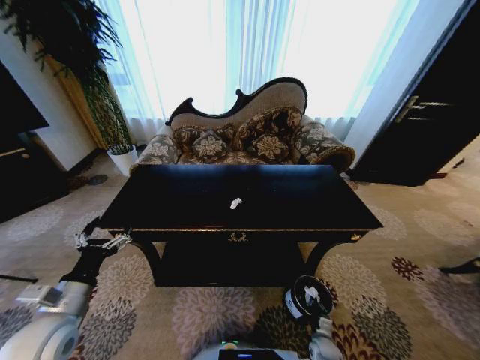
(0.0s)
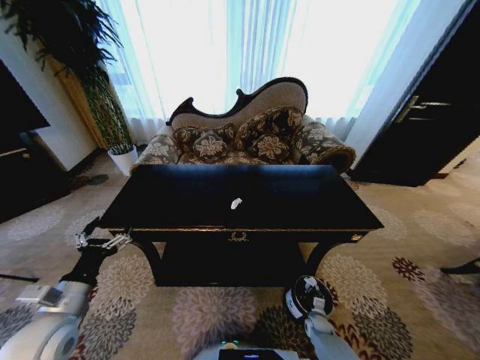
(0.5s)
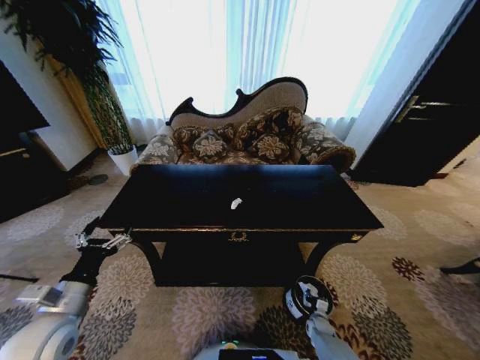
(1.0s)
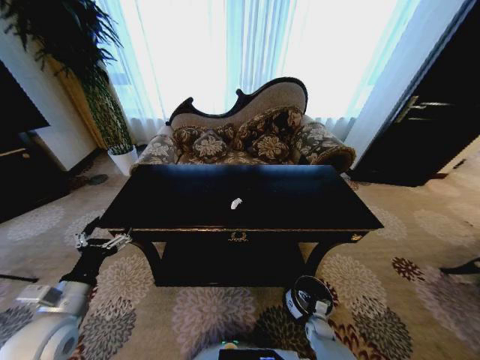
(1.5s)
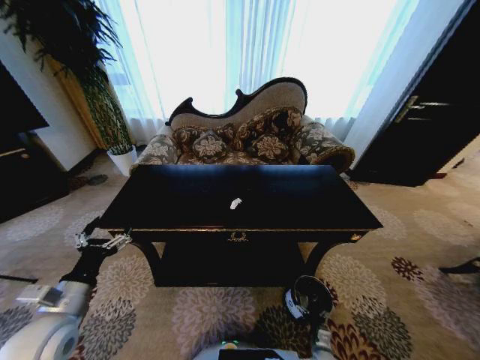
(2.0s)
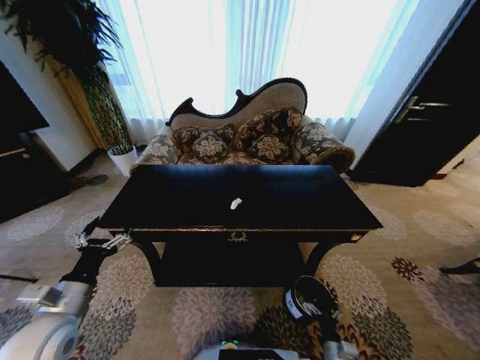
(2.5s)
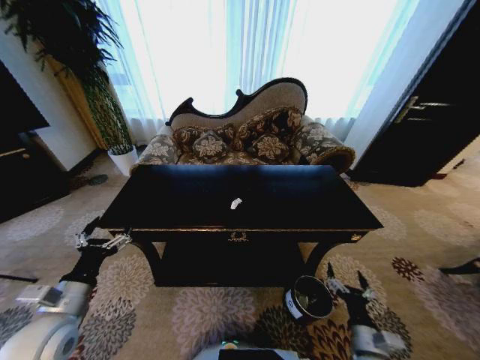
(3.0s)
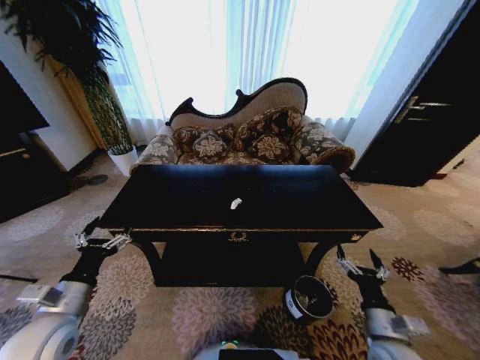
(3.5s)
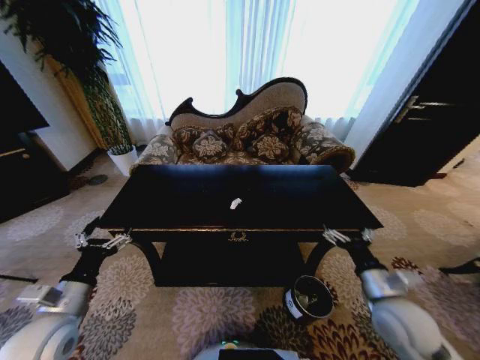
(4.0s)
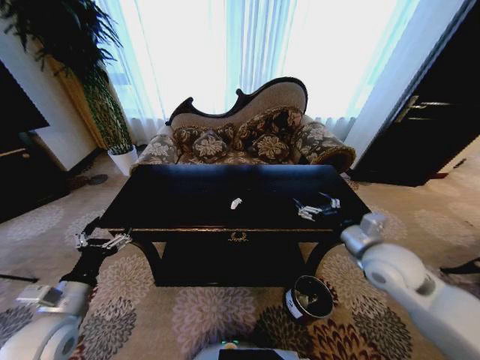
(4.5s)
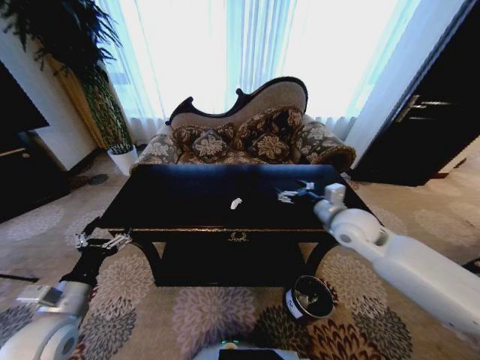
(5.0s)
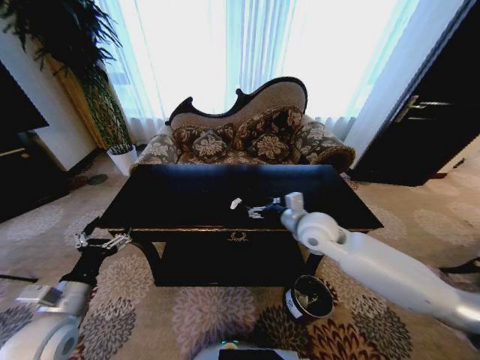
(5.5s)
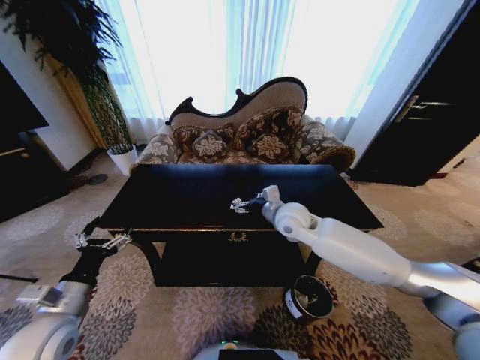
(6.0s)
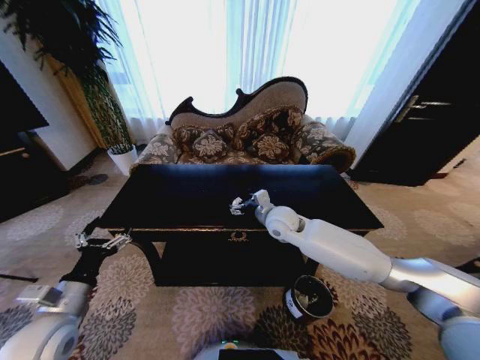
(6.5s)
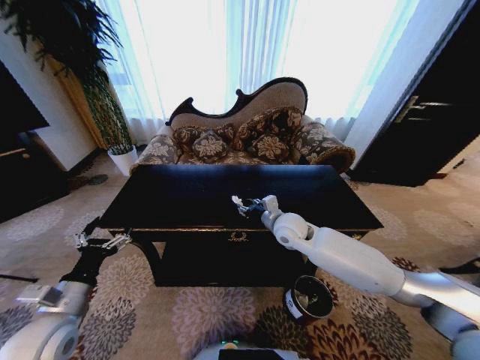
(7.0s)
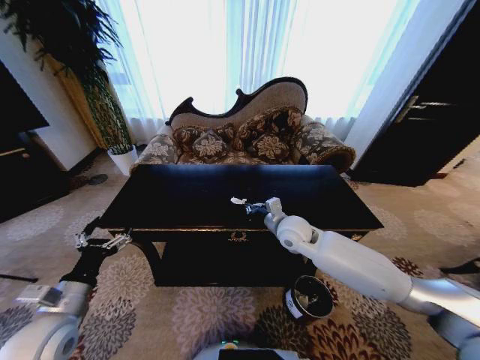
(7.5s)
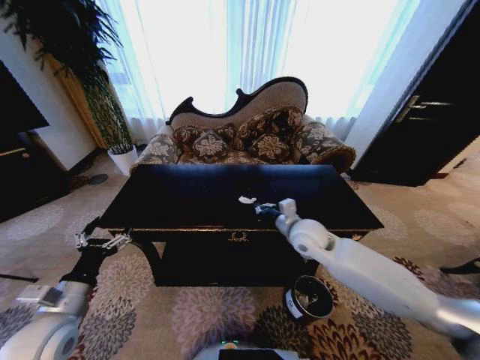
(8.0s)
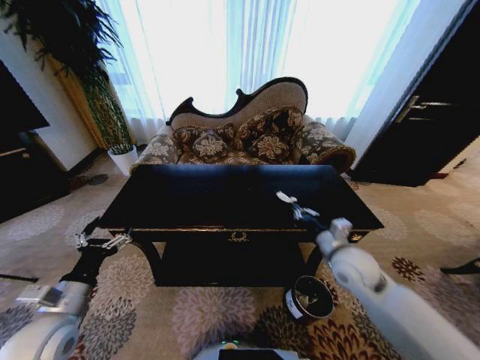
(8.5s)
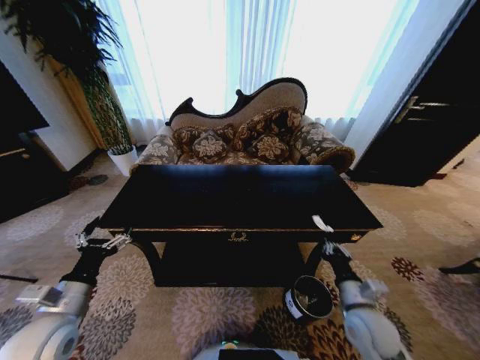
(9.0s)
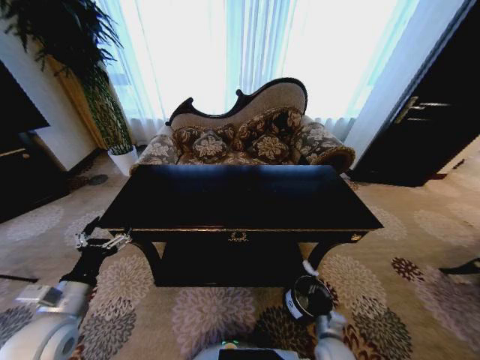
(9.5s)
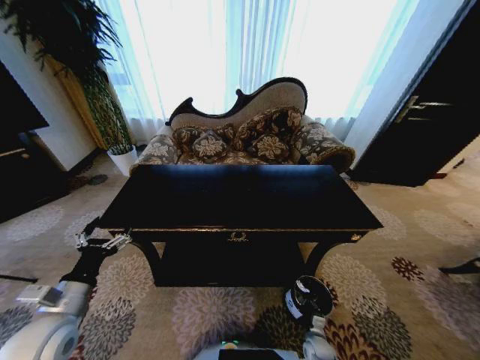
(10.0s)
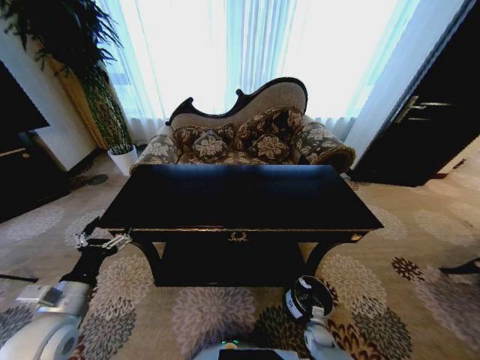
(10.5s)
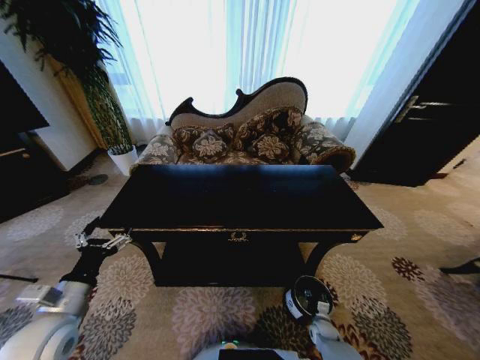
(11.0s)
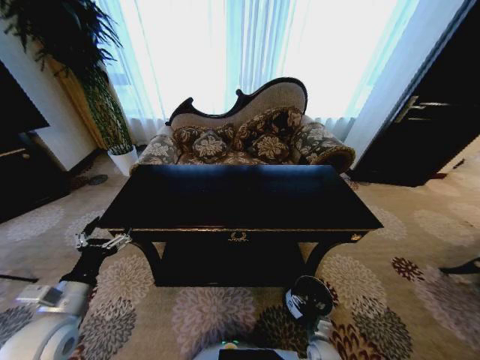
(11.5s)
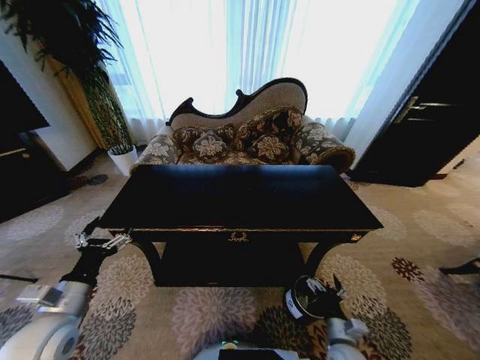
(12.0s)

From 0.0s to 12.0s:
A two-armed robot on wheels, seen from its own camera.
Task of the whole recording: Move to the front of the table and place the trash on the table into the trash bin.
From 0.0s to 2.0s: The right gripper goes forward and returns, about 5 cm each way, and opens its fingers.
From 2.0s to 4.0s: The right gripper moves upward, approximately 40 cm.
From 4.0s to 6.0s: The right gripper moves forward and to the left, about 30 cm.
From 6.0s to 8.0s: The right gripper changes place by some 5 cm, and closes its fingers.
From 8.0s to 10.0s: The right gripper travels downward and backward by some 50 cm.
From 10.0s to 12.0s: The right gripper moves upward, approximately 15 cm, and opens.

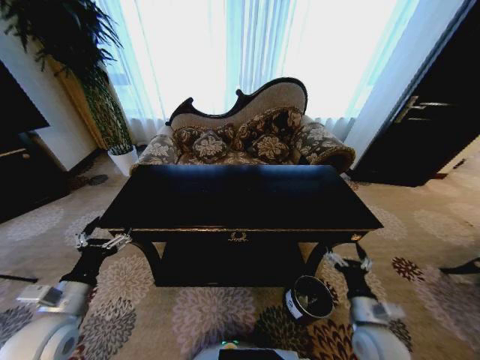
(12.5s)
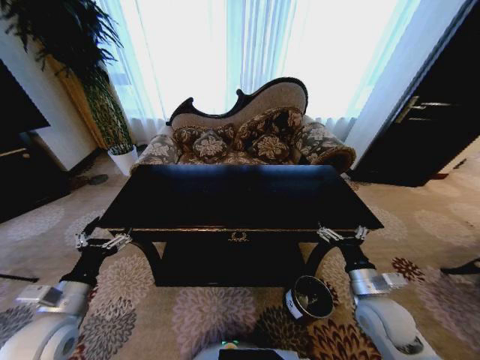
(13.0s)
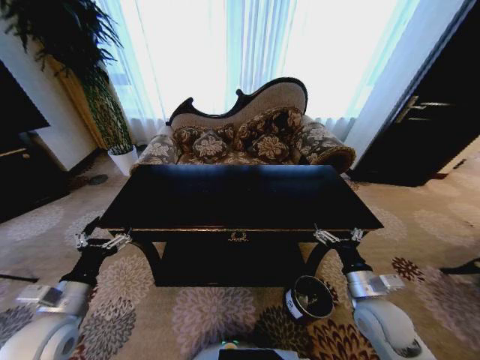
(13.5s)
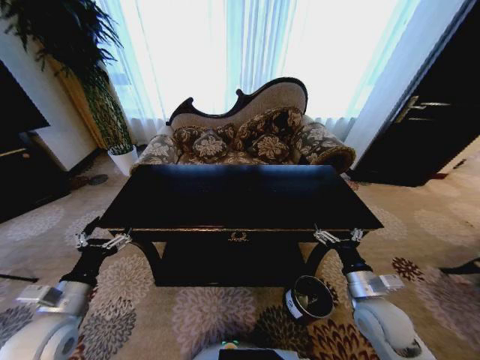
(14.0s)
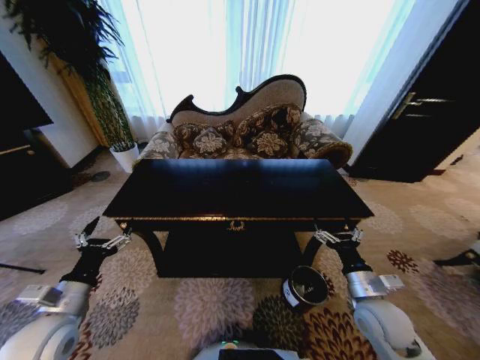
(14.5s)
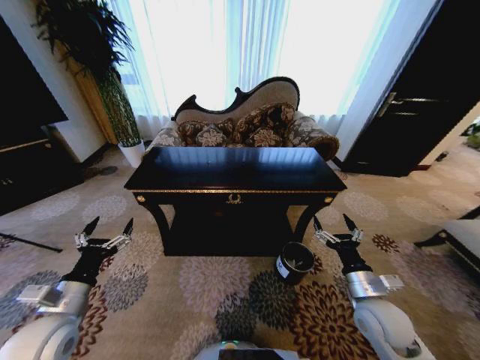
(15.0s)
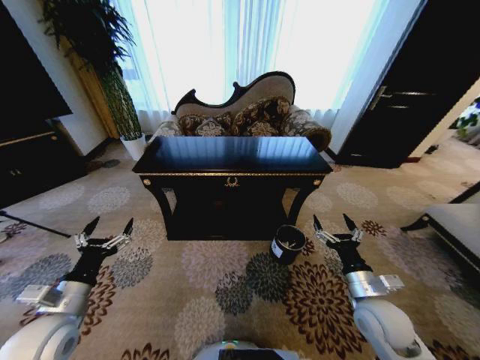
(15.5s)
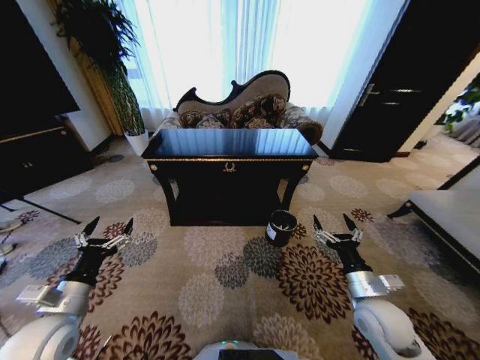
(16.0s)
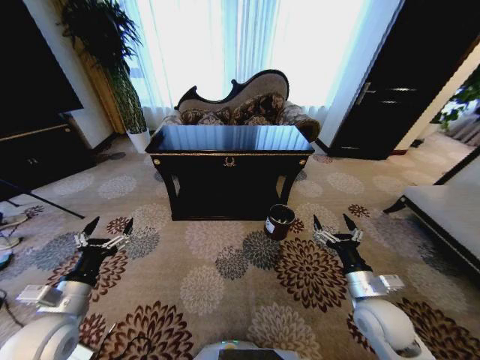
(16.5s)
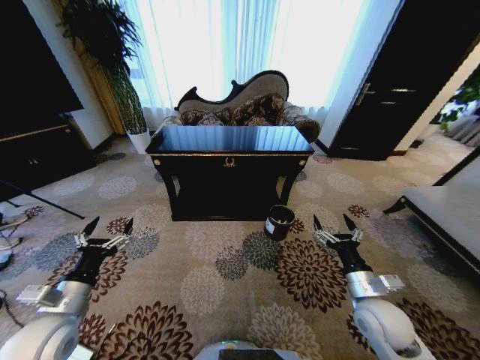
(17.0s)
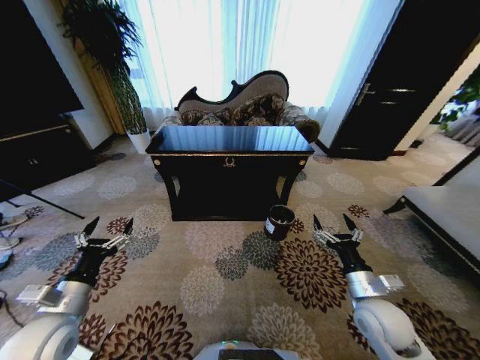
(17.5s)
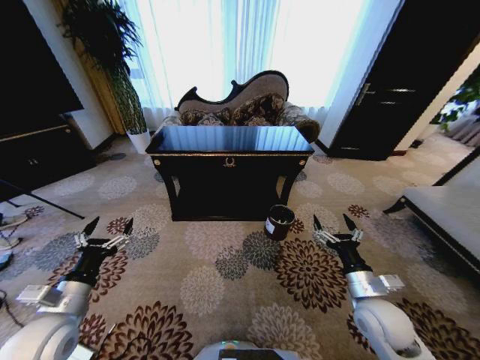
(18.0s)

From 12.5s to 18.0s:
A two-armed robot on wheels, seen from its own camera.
Task of the whole recording: Move to the front of the table and place the trash on the table into the trash bin.
From 12.5s to 14.5s: The right gripper is displaced upward by roughly 10 cm.
From 16.0s to 18.0s: The two grippers keep their place.

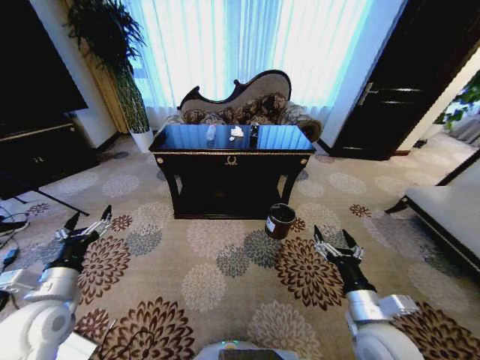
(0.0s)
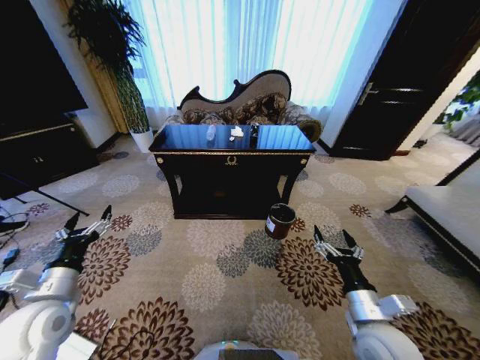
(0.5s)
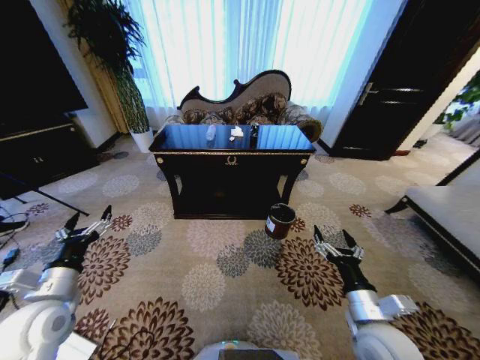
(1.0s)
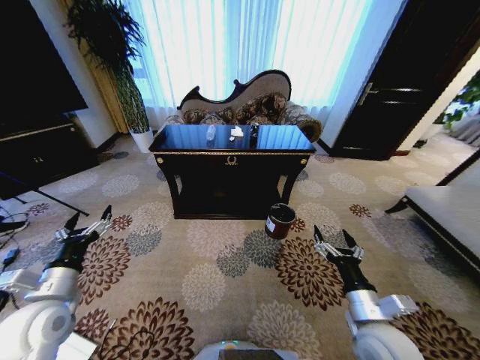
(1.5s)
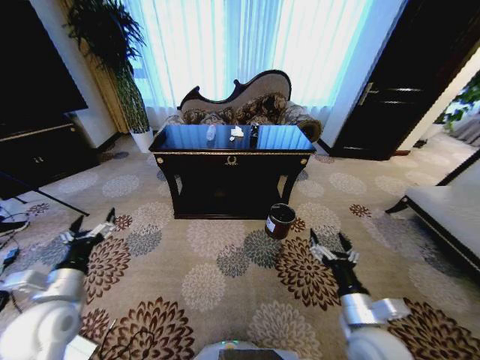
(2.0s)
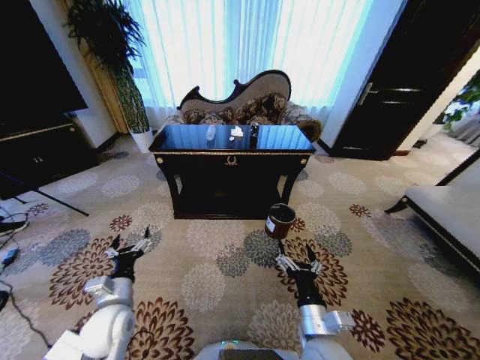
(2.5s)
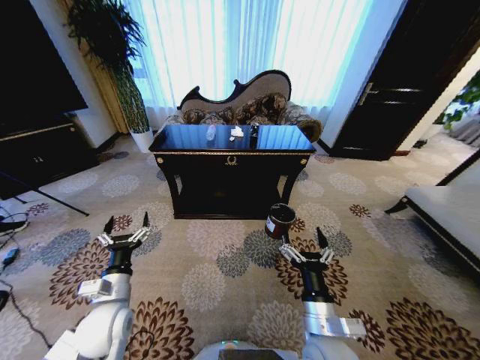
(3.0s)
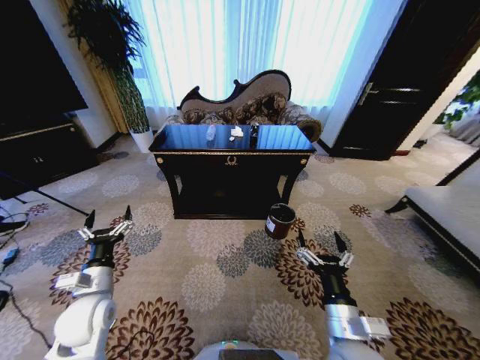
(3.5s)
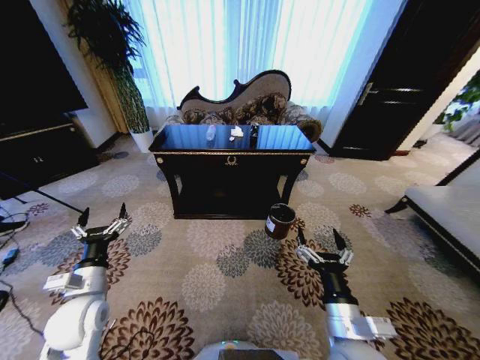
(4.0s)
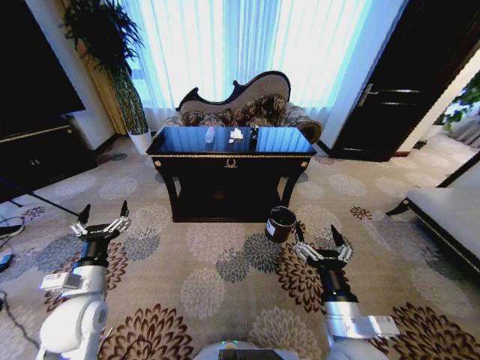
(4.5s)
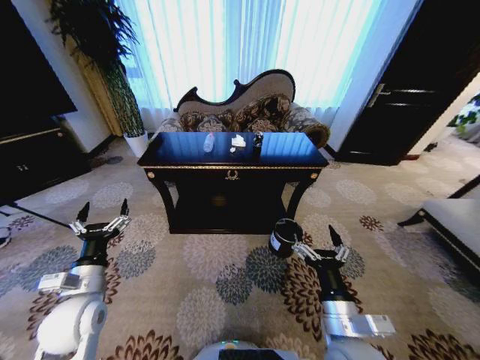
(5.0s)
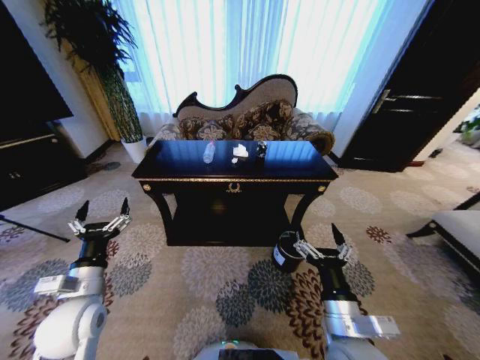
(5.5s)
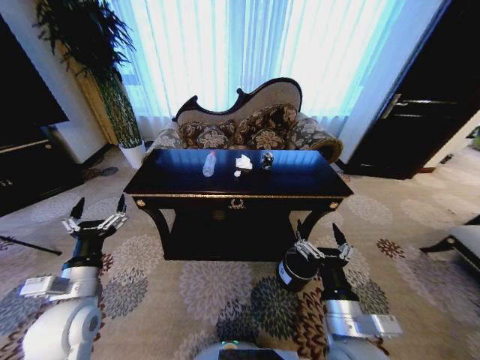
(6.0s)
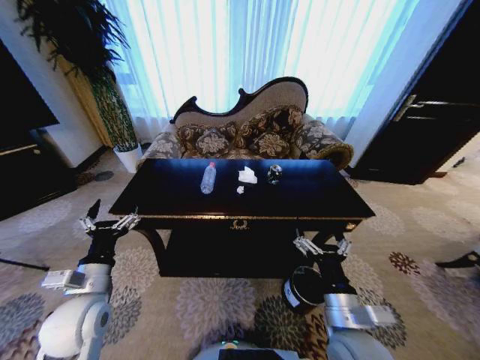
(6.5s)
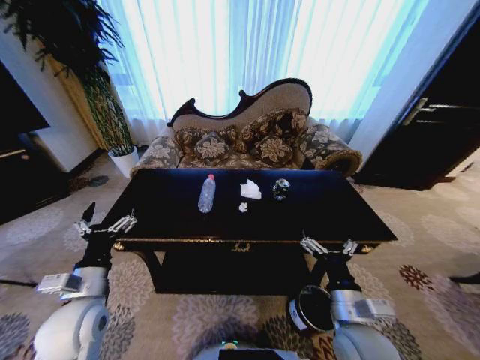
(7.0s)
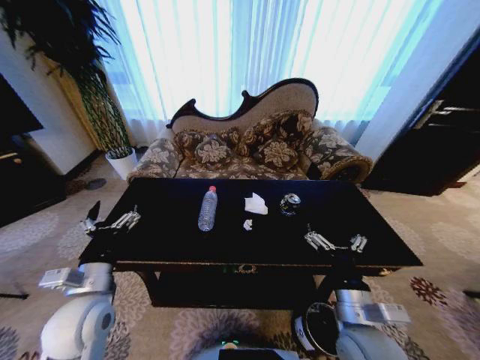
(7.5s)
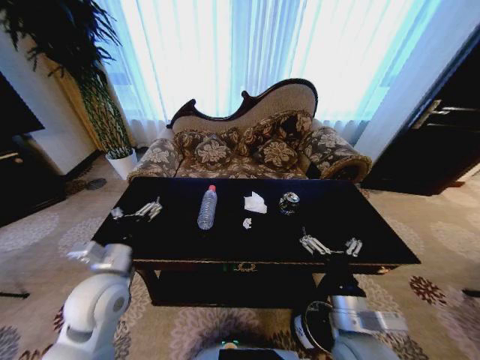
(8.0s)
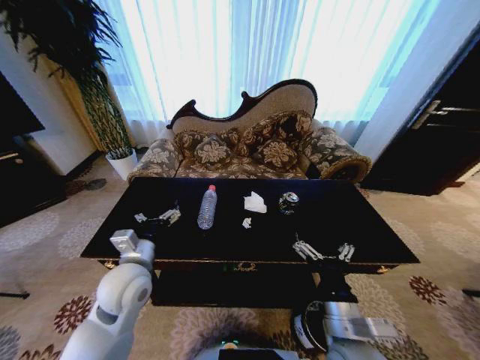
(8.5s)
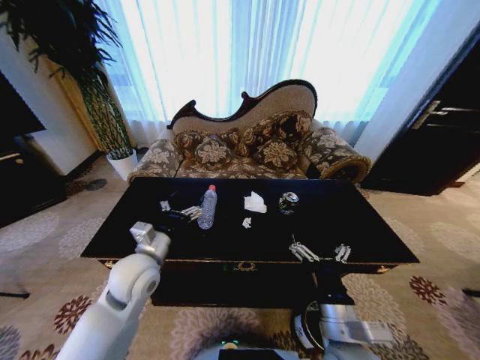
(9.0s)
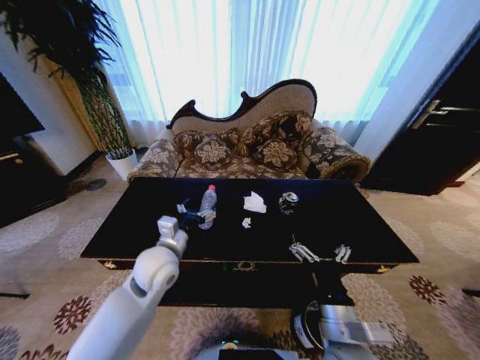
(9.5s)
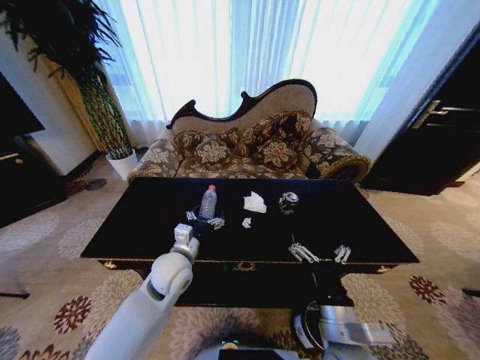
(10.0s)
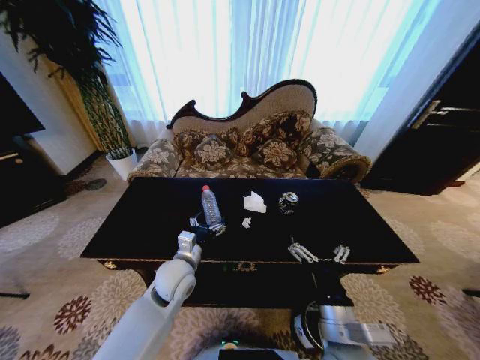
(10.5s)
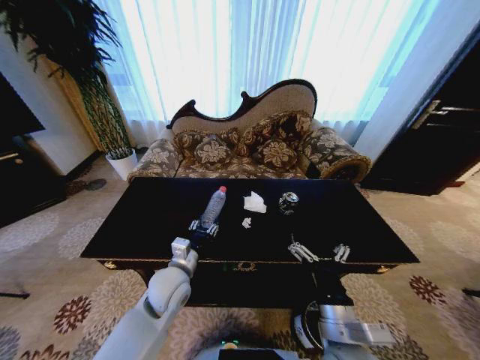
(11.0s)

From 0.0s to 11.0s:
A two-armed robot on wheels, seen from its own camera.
Task of the whole recording: Move to the front of the table and place the trash on the table into the trash bin.
From 2.0s to 3.5s: The right gripper goes about 5 cm to the left.
From 7.5s to 9.0s: The left gripper heads forward and to the right, covering about 10 cm.
From 9.0s to 11.0s: The left gripper travels downward and to the right by roughly 10 cm, and closes up.
